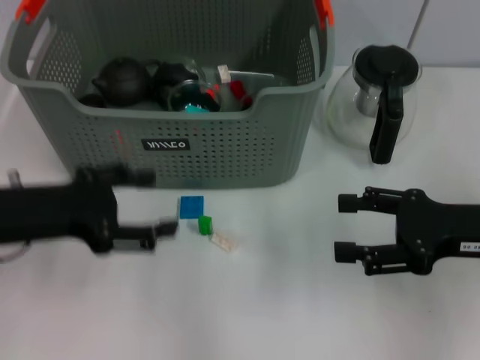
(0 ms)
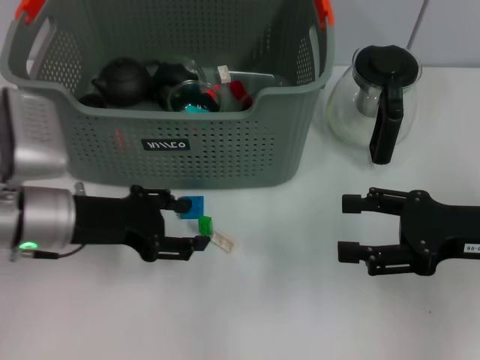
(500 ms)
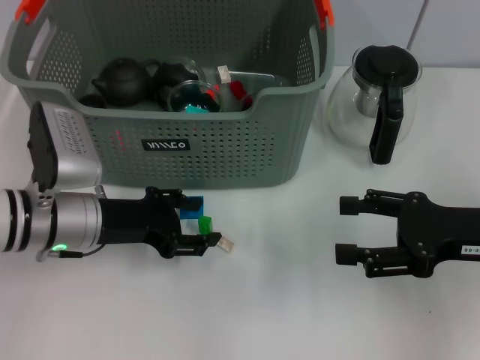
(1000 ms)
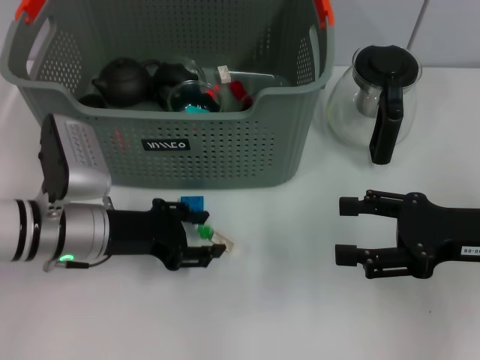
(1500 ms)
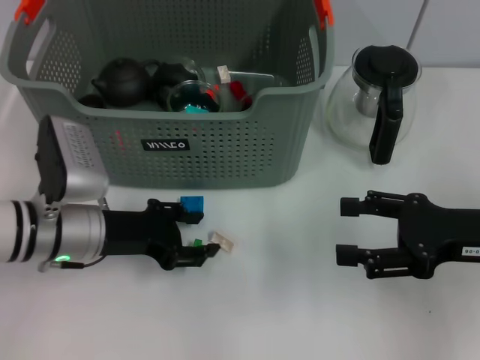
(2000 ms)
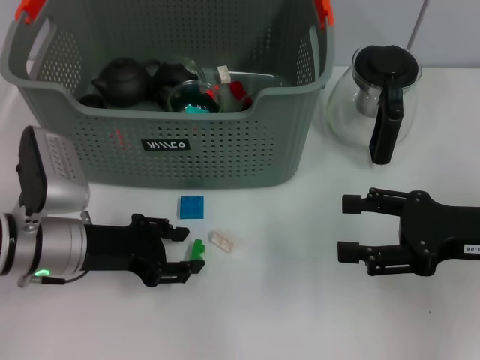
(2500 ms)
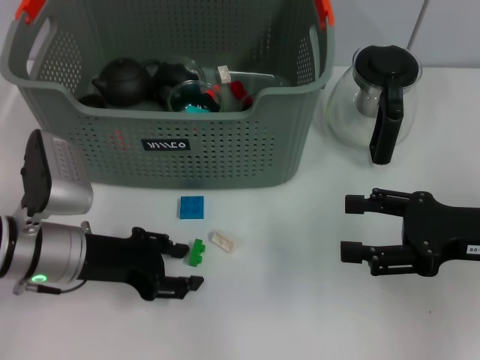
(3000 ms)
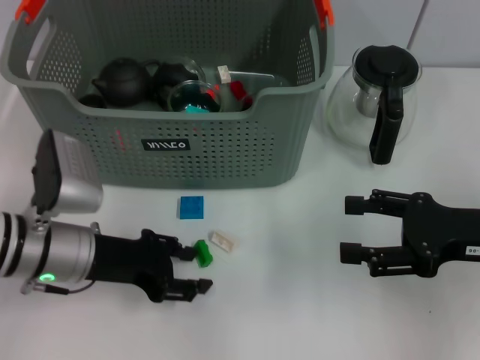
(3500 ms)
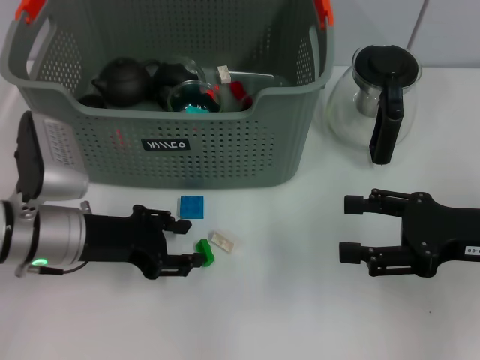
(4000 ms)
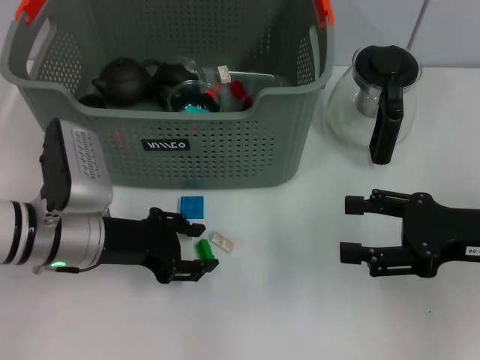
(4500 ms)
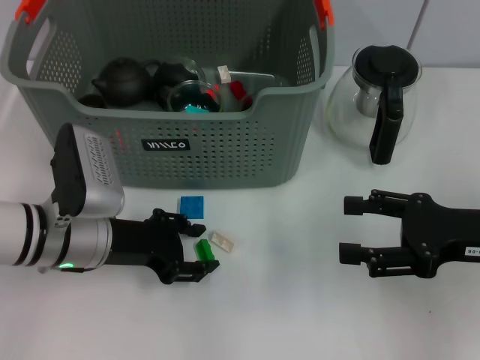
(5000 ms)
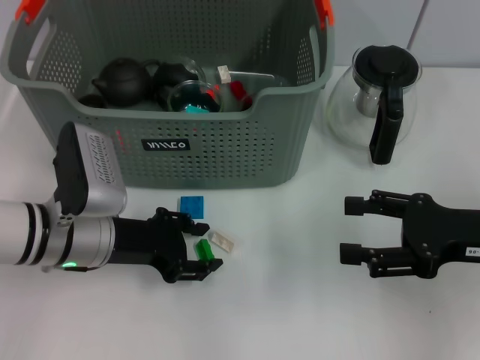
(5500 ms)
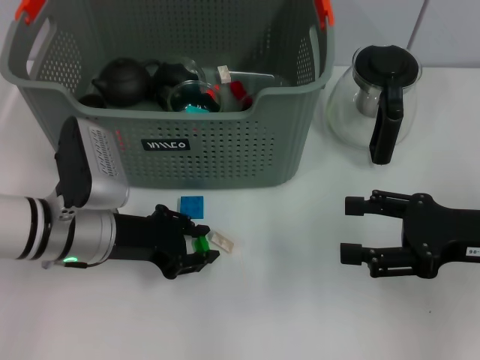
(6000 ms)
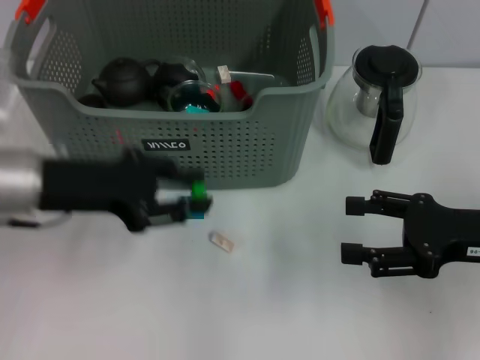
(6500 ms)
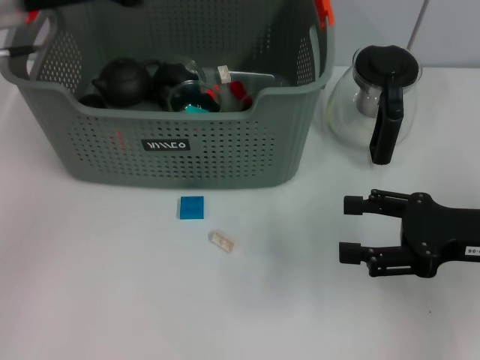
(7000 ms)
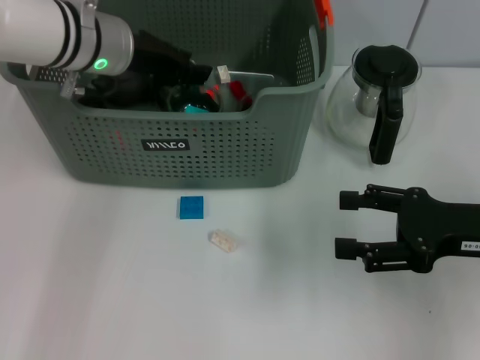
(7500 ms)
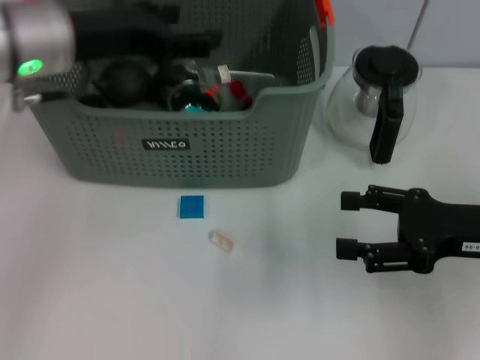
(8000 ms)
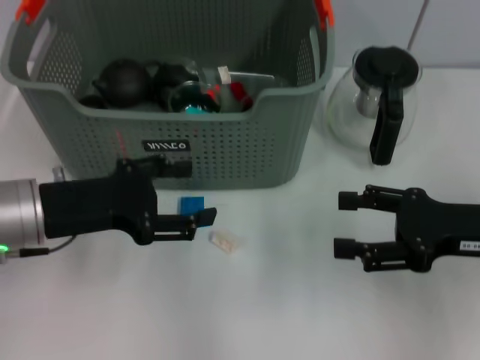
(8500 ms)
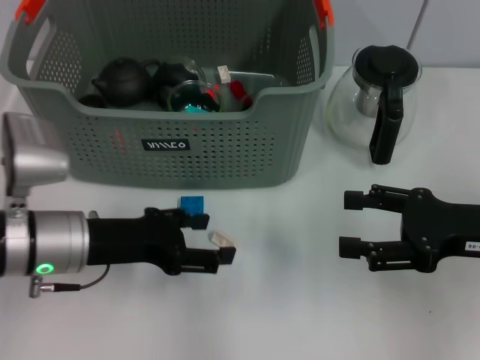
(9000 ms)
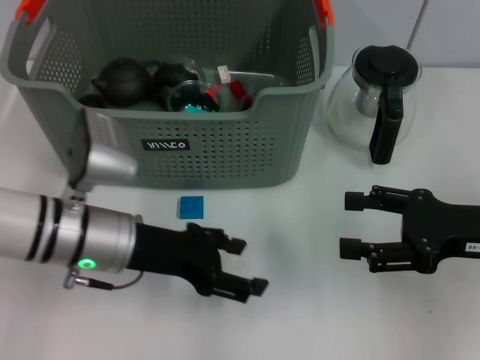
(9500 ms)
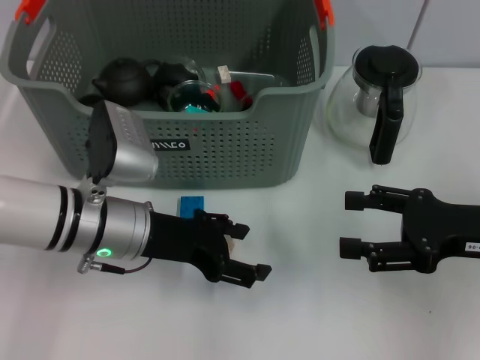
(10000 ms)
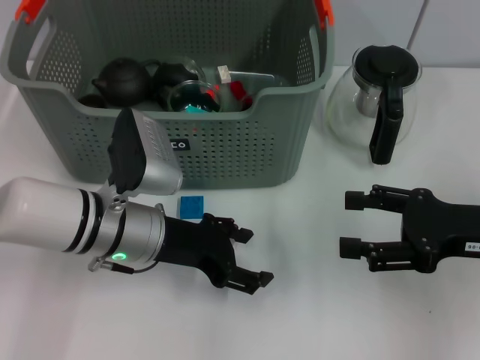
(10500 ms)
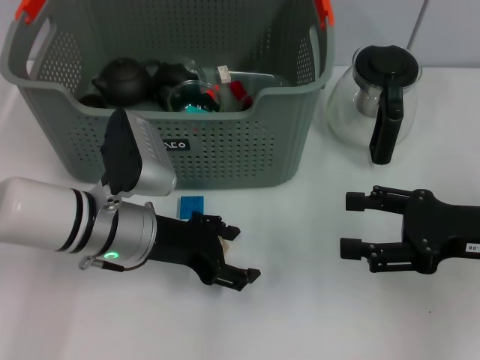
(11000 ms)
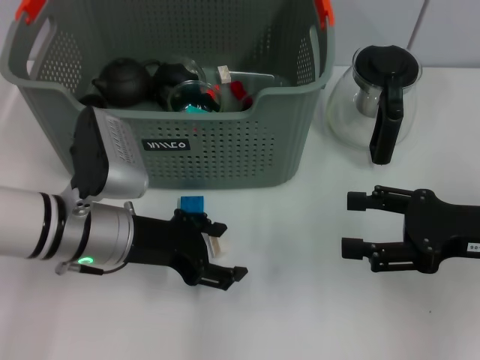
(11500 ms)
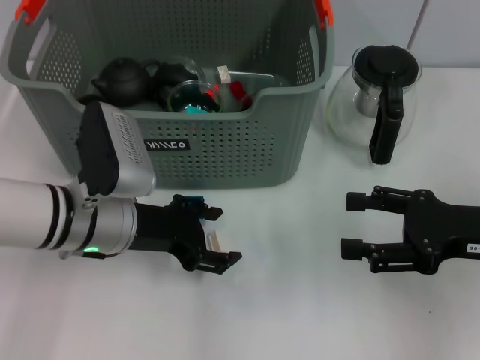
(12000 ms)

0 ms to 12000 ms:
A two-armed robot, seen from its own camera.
Task of the whole recording: pick up the teacup on the table and place it into the storage bin, pick up the block on the table and place it into the storage bin.
Step, 0 ms to 6000 ms: Grasp the green block with left gripper.
Step, 6500 ms to 7500 ms: Place the green block in the storage box with left gripper.
0 ms to 2000 ms: The left gripper is displaced downward and to the right by roughly 10 cm.
2000 ms to 6000 ms: The grippers stay close to where they were, moving slightly.
6000 ms to 8000 ms: The left gripper shifts about 15 cm upward.
8000 ms to 10000 ms: The left gripper travels downward by some 15 cm.
10000 ms to 12000 ms: There are only small adjustments of the grippers.

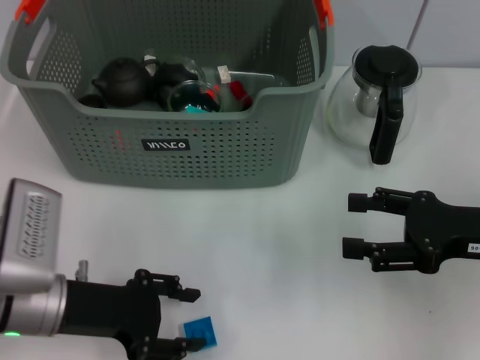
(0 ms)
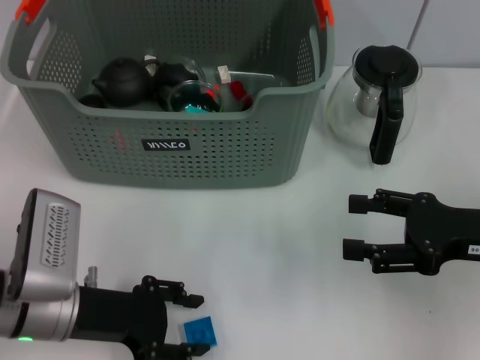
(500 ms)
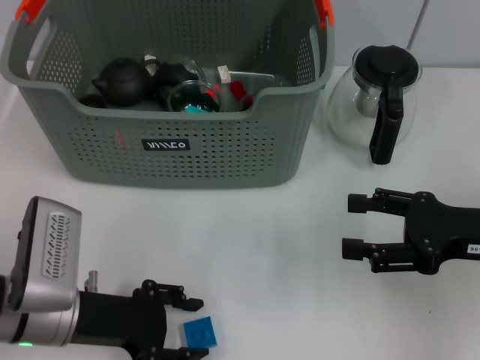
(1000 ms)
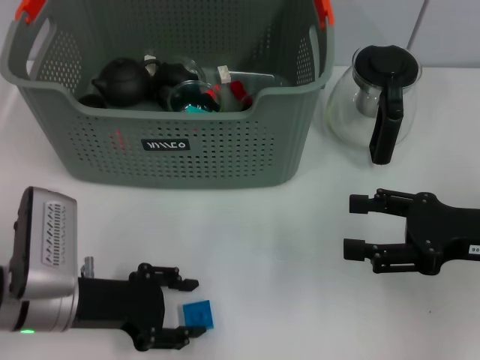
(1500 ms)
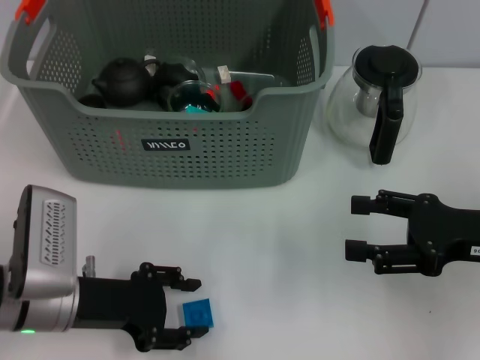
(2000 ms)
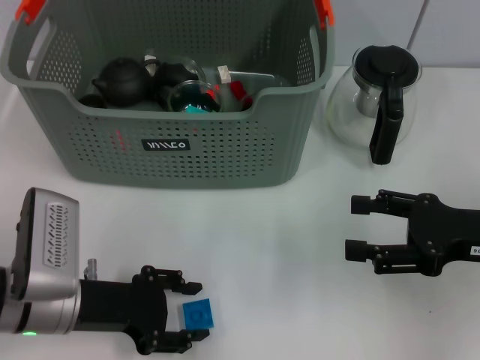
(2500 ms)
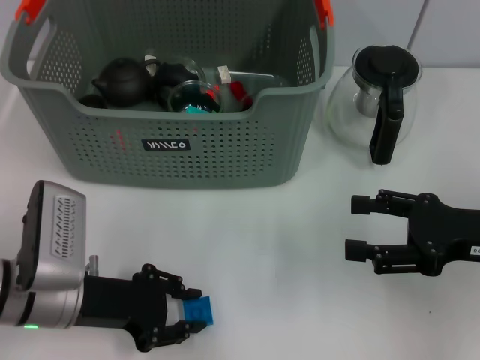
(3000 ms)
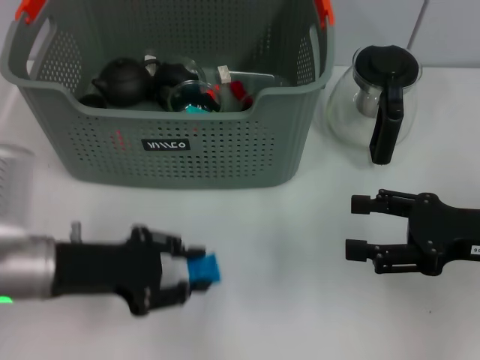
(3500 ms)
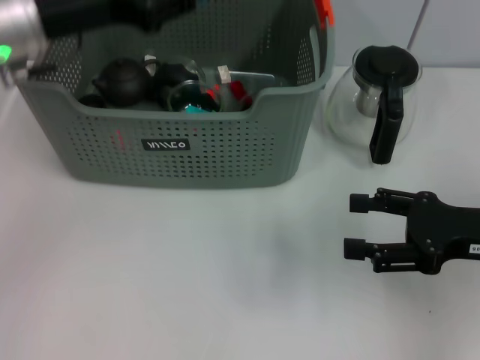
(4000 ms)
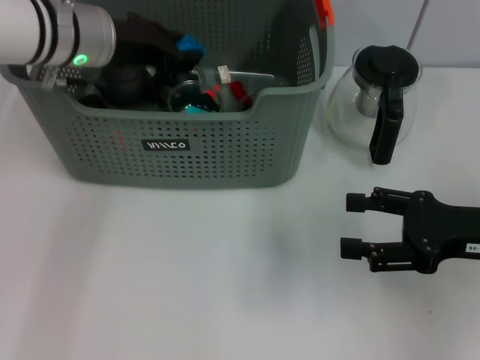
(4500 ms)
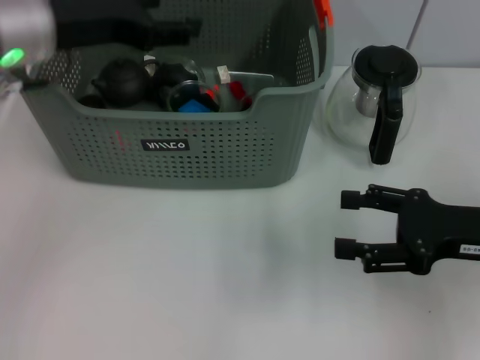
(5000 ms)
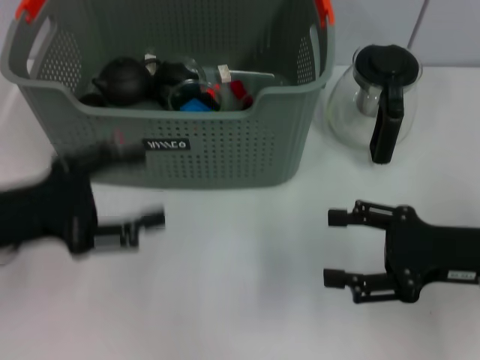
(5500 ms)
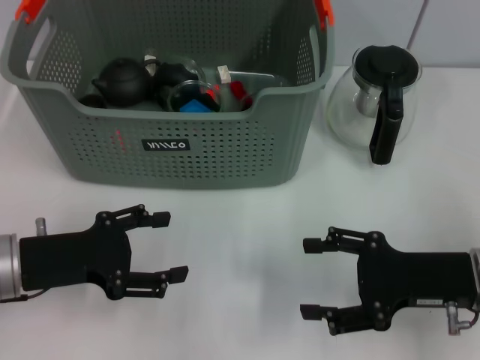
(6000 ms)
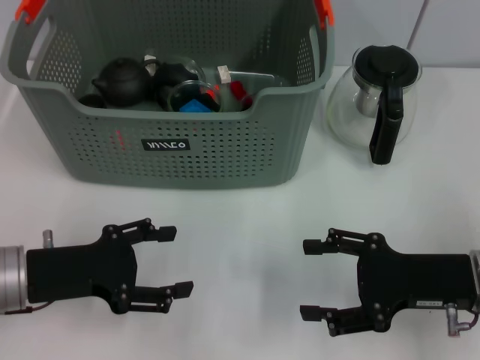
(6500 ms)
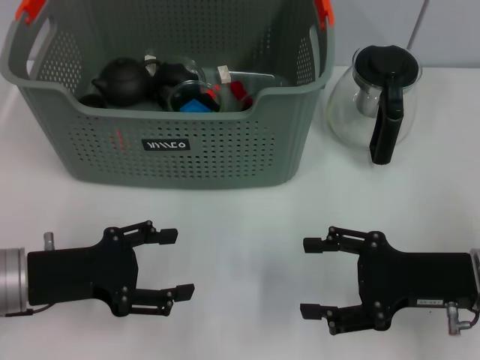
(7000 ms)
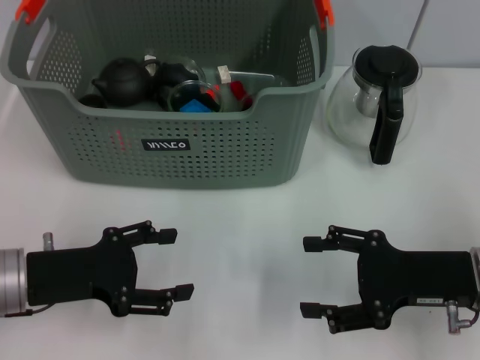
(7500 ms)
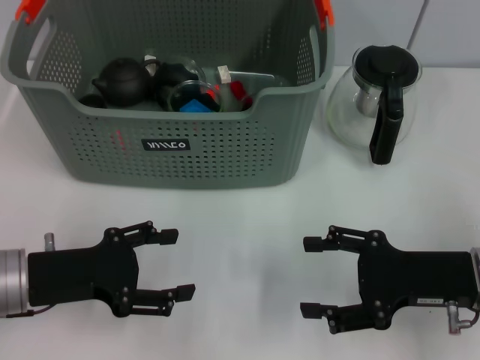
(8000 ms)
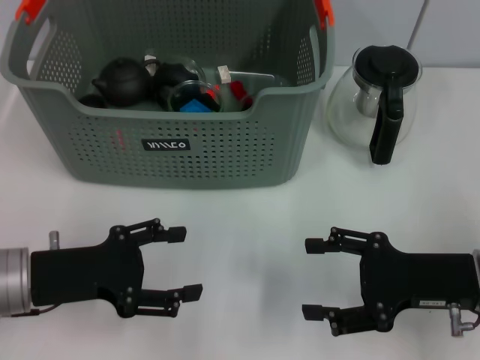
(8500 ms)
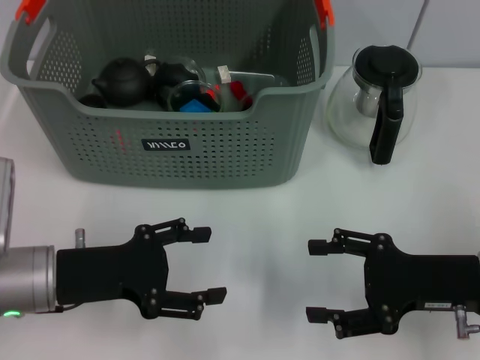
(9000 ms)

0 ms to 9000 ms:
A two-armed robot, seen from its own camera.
Task of the whole recording: pick up the teacup on the table and place it into the storage bin, pick up the block on the table and place it into the storage bin.
Step, 0 ms to 3000 ms: Grasp the dark blue block with left gripper.
Step, 3500 ms to 5000 ms: Place the dark blue block in the storage box with left gripper.
0 ms to 2000 ms: The grippers stay close to where they were, moving slightly.
2000 ms to 4500 ms: The left gripper is displaced forward and upward by some 25 cm.
4500 ms to 7000 ms: The right gripper ends up about 5 cm from where it was. The left gripper is displaced backward, downward and to the left by approximately 25 cm, and opens its fingers.
7000 ms to 9000 ms: The grippers stay close to where they were, moving slightly.
